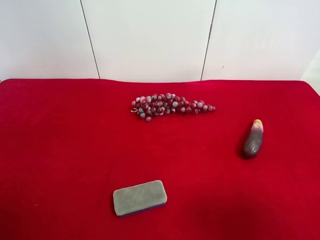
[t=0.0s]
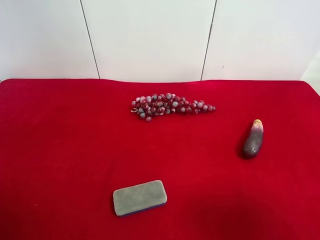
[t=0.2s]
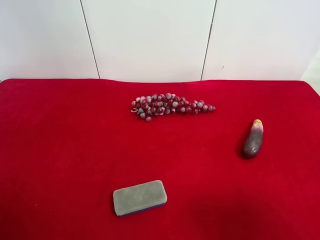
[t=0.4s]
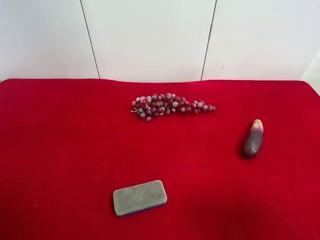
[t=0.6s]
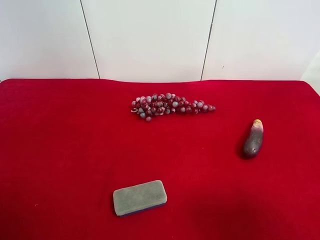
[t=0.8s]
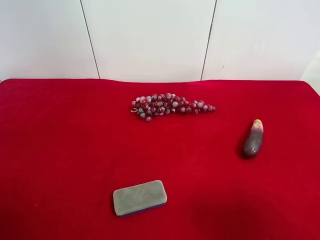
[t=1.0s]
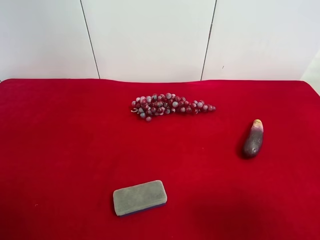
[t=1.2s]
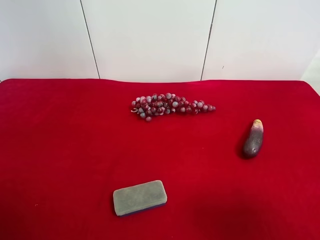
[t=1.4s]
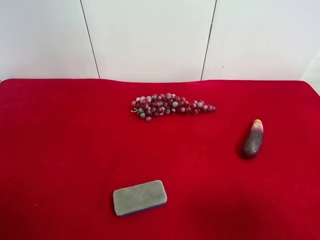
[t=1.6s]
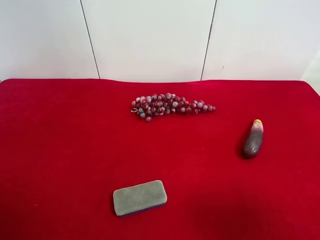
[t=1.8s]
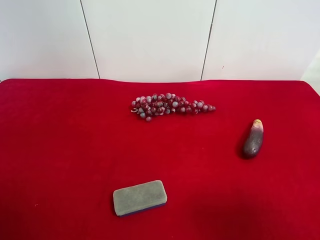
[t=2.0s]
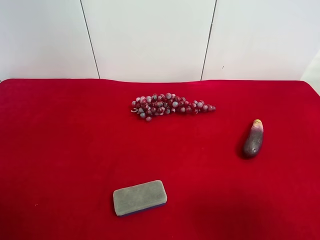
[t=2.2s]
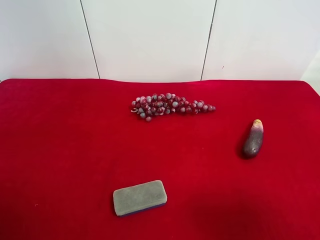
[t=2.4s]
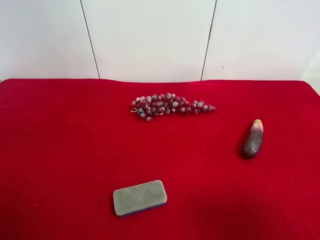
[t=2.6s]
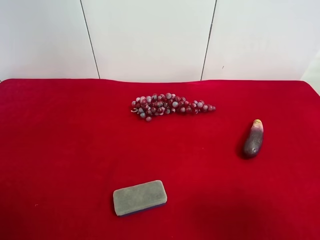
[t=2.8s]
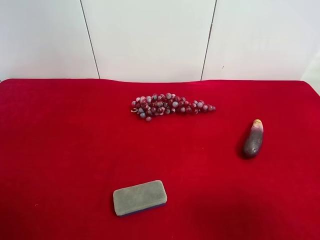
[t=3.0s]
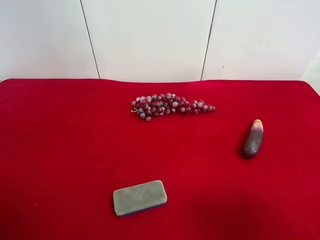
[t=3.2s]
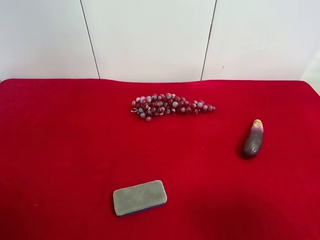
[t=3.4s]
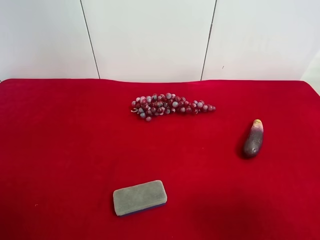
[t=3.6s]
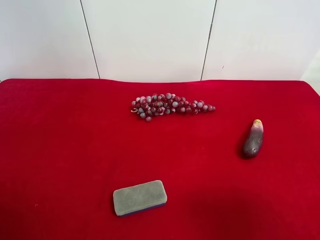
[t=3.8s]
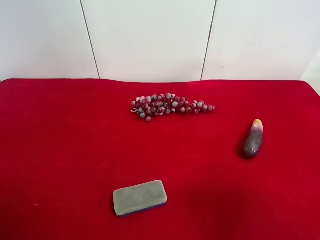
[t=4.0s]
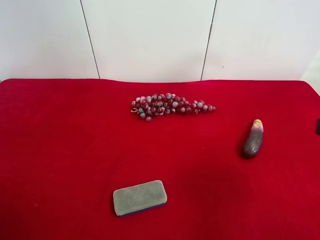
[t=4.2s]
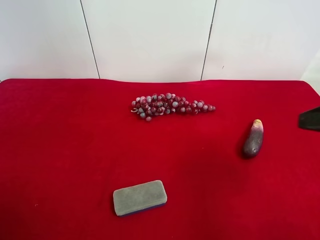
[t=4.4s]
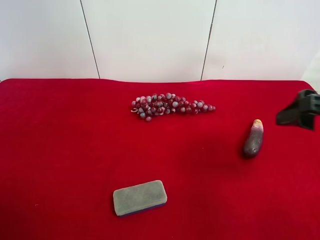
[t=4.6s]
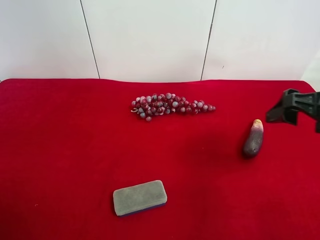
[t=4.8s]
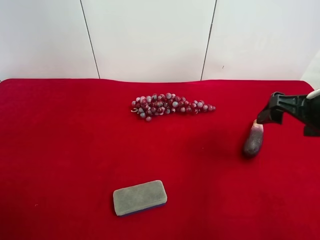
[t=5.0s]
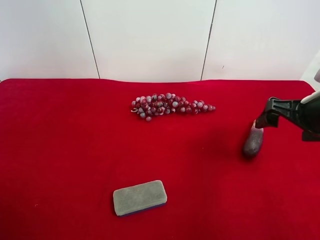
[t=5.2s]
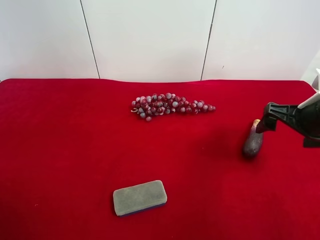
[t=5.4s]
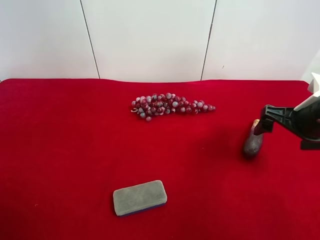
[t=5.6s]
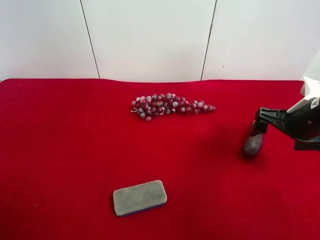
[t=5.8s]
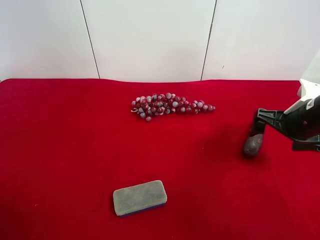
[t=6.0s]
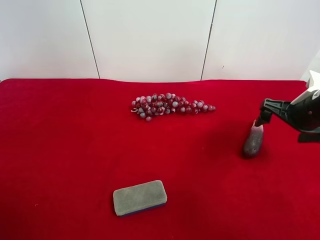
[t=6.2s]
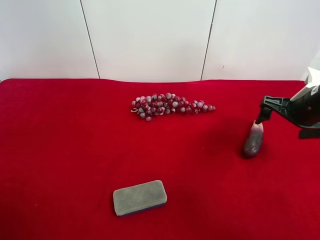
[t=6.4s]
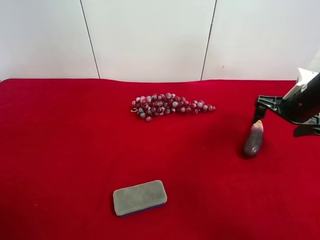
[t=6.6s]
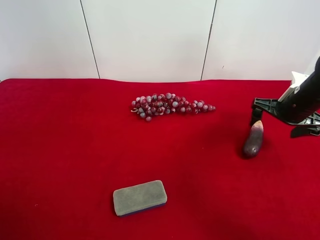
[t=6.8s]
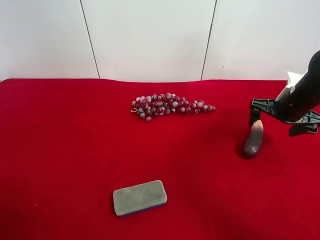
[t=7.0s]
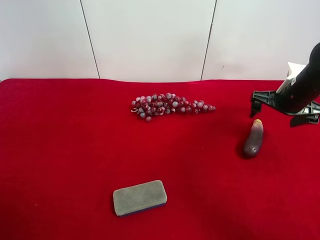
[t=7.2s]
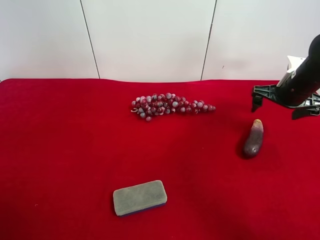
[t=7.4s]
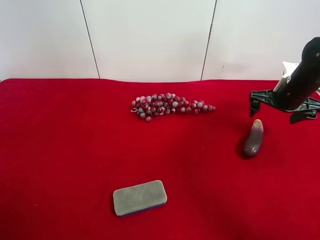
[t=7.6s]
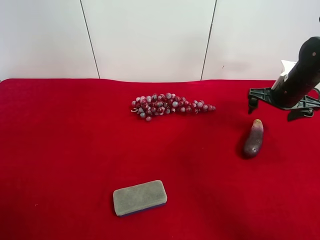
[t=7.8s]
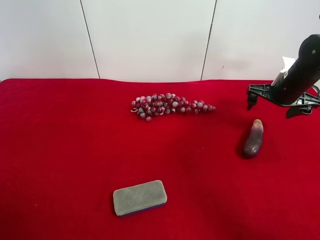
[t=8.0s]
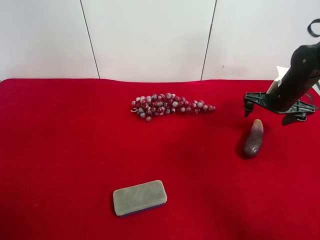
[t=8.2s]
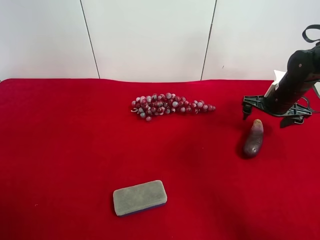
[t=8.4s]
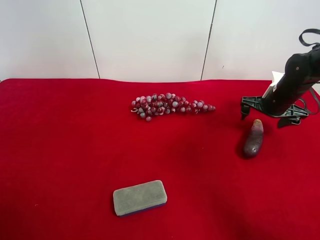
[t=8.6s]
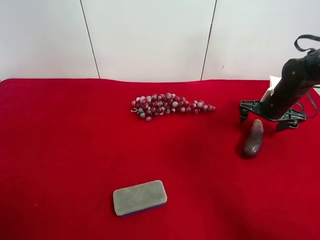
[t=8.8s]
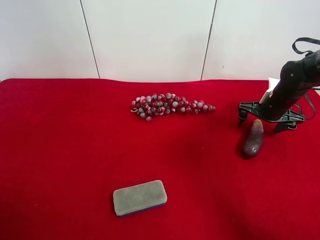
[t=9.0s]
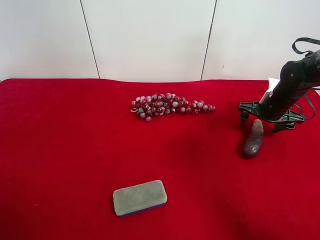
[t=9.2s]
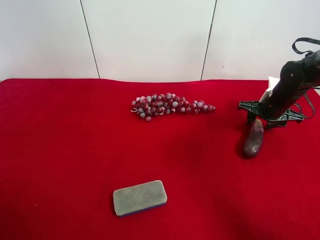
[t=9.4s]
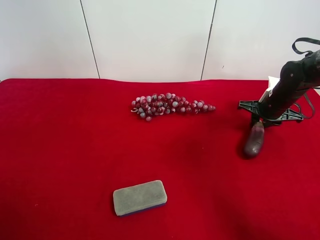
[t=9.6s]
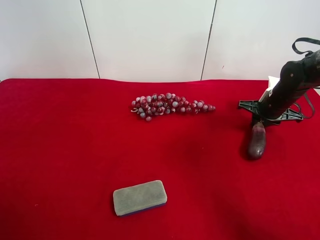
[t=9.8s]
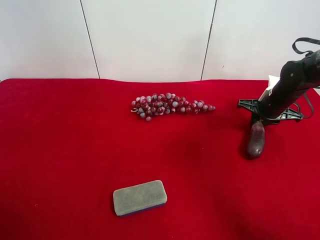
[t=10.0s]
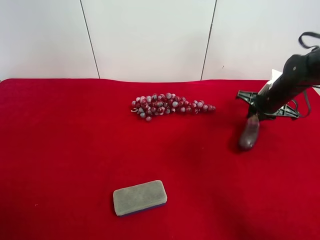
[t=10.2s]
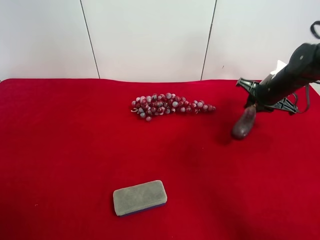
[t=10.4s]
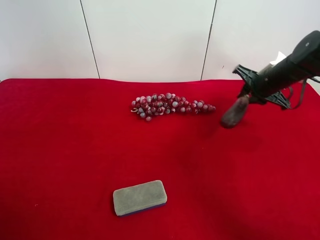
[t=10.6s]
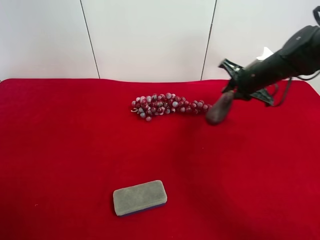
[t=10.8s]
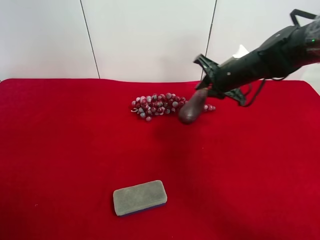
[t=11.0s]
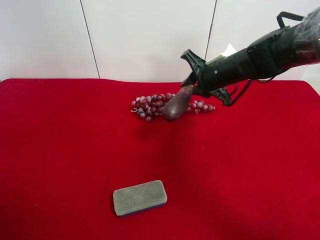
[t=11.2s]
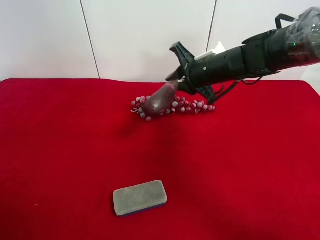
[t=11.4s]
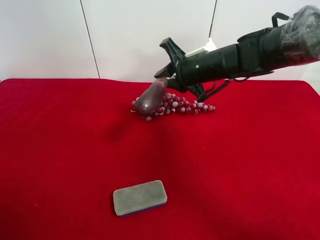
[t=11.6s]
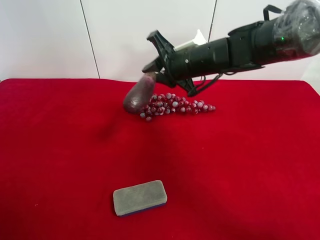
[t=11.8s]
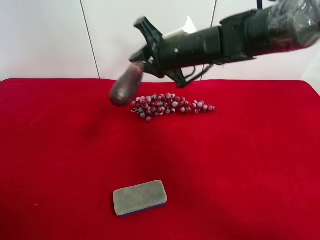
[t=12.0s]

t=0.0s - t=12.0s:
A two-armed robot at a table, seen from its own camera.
Task of the whole recording: use the right gripper to pick up the item and transfer it from the right gripper to the left gripper.
Step, t=0.0s - t=9.6s: Use the right gripper to grab the eggplant on the right side of the table.
t=0.0s - t=3.0s: Both grippers stay about where they are.
t=4.4s - t=6.0s: The right gripper travels forward and downward by some 15 cm.
t=6.0s - t=7.6s: The right gripper moves forward, some 10 cm.
t=7.6s - t=9.0s: The right gripper shifts some 5 cm downward.
t=9.0s - t=10.4s: The right gripper closes.
t=10.4s - t=12.0s: The right gripper travels to the left by approximately 25 cm.

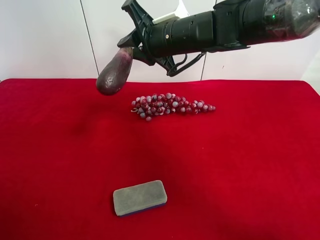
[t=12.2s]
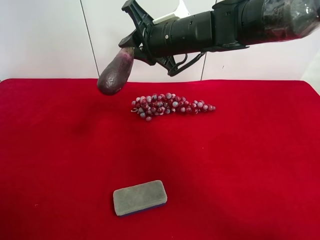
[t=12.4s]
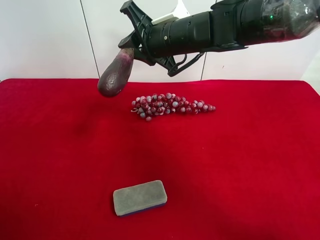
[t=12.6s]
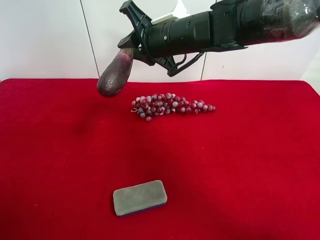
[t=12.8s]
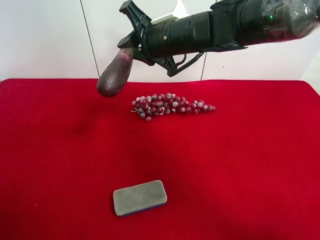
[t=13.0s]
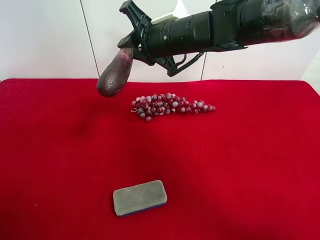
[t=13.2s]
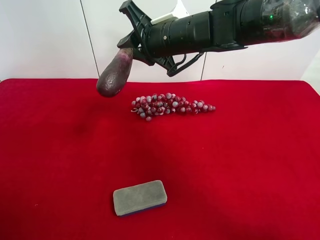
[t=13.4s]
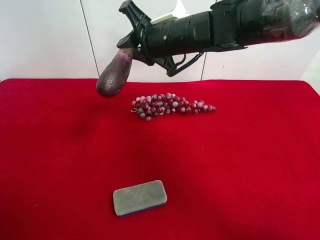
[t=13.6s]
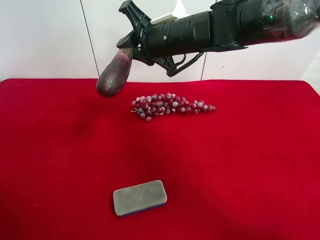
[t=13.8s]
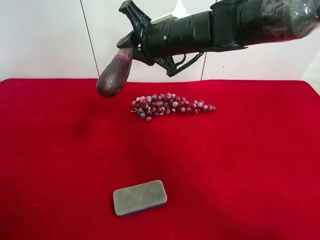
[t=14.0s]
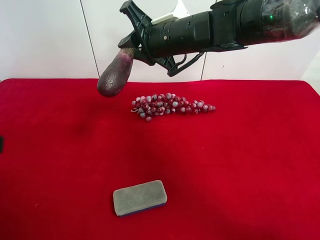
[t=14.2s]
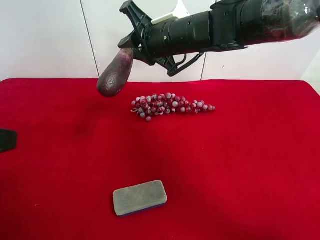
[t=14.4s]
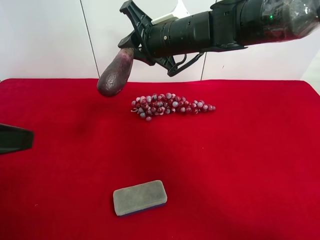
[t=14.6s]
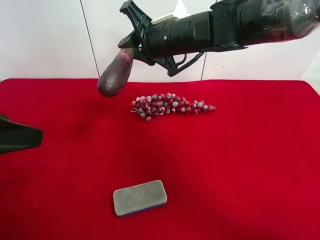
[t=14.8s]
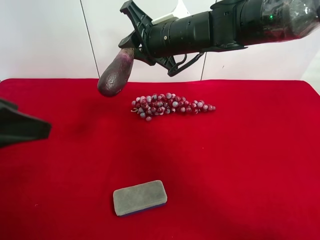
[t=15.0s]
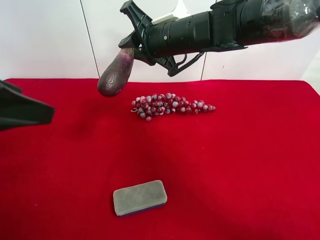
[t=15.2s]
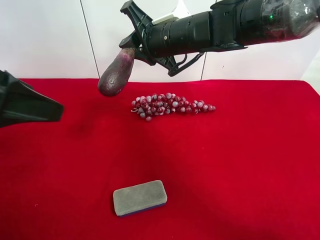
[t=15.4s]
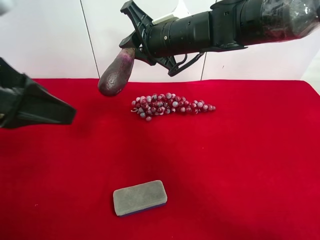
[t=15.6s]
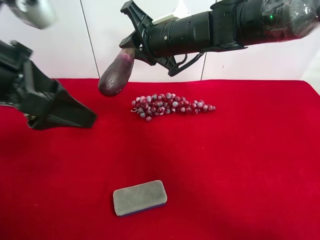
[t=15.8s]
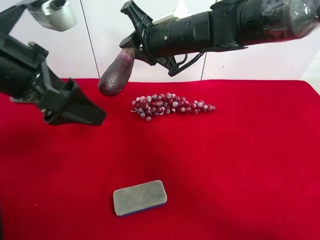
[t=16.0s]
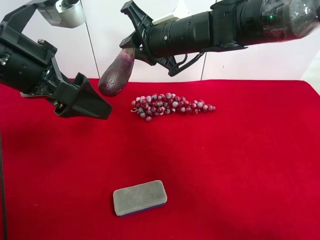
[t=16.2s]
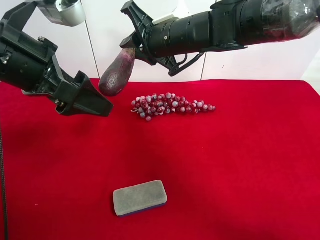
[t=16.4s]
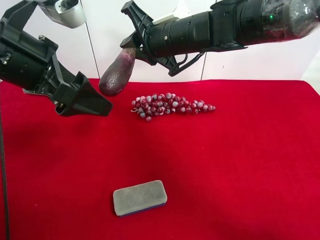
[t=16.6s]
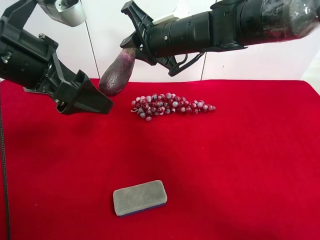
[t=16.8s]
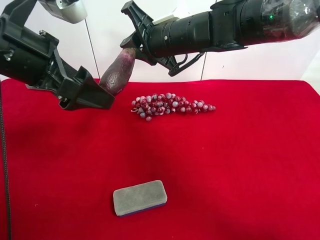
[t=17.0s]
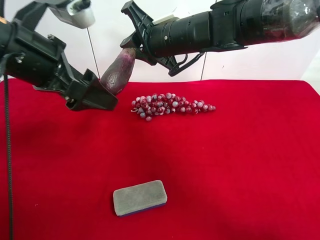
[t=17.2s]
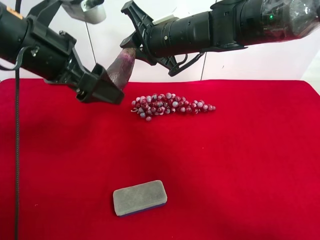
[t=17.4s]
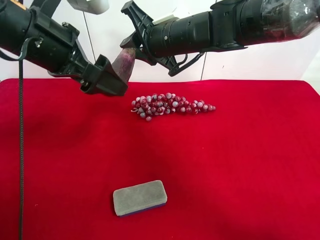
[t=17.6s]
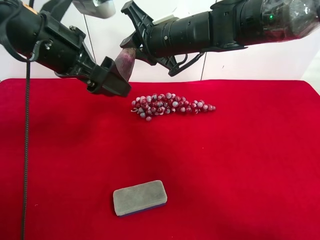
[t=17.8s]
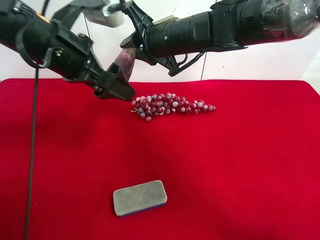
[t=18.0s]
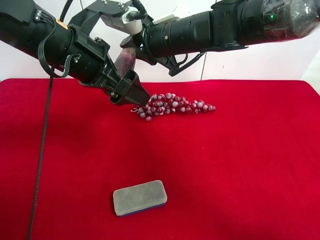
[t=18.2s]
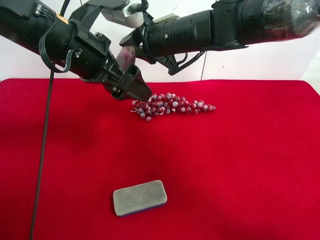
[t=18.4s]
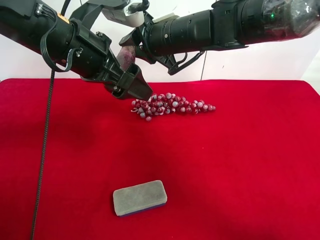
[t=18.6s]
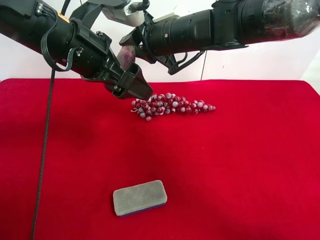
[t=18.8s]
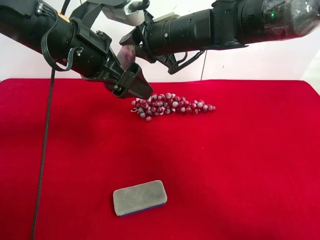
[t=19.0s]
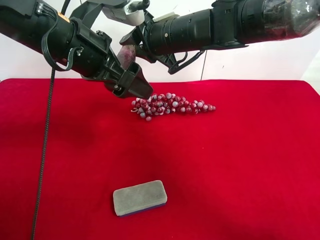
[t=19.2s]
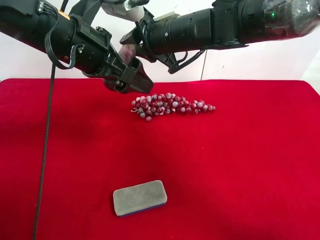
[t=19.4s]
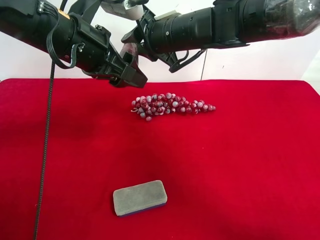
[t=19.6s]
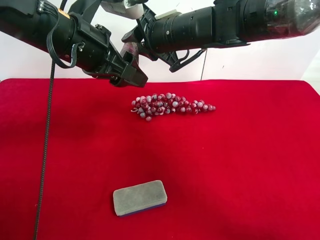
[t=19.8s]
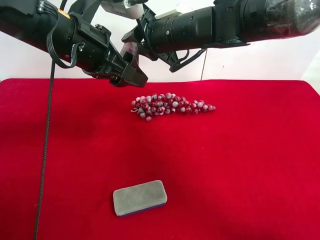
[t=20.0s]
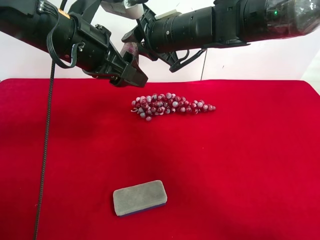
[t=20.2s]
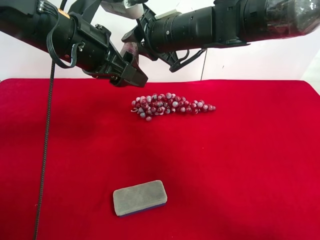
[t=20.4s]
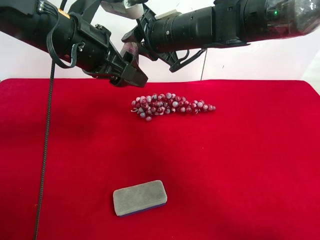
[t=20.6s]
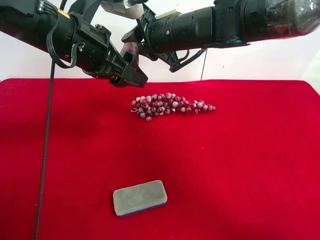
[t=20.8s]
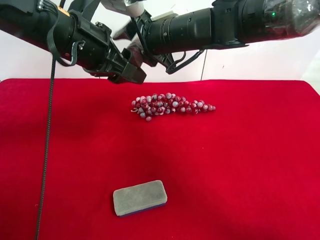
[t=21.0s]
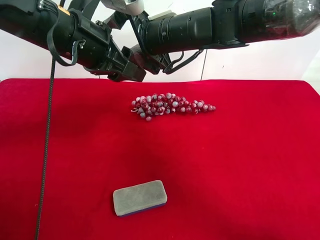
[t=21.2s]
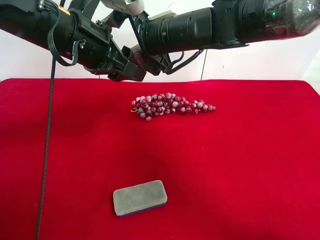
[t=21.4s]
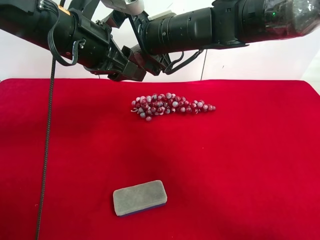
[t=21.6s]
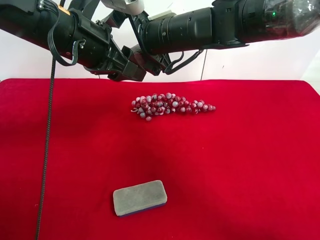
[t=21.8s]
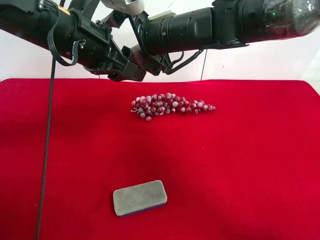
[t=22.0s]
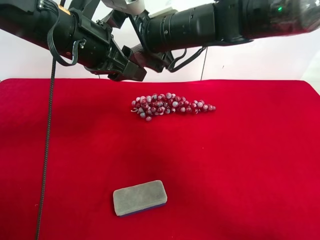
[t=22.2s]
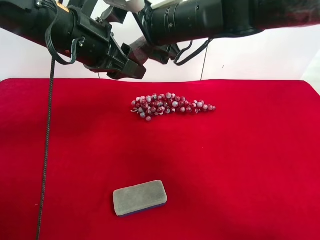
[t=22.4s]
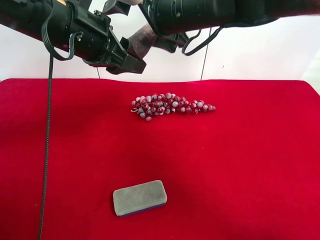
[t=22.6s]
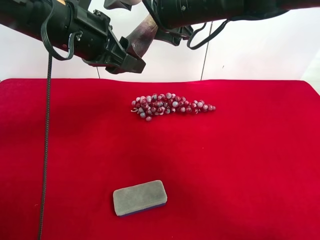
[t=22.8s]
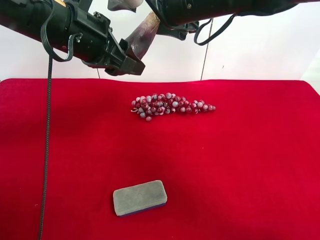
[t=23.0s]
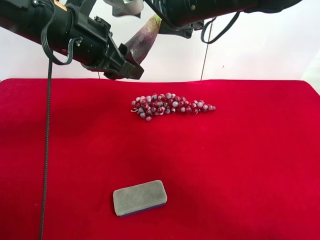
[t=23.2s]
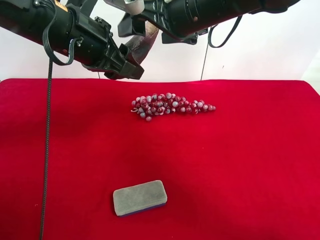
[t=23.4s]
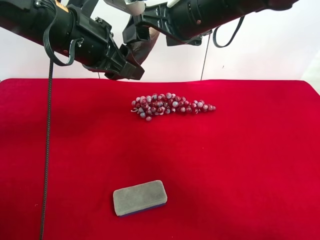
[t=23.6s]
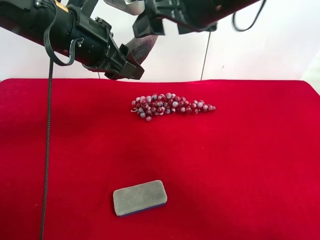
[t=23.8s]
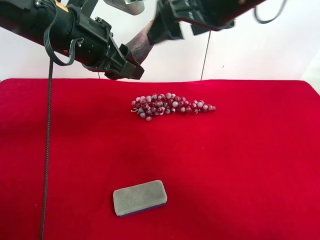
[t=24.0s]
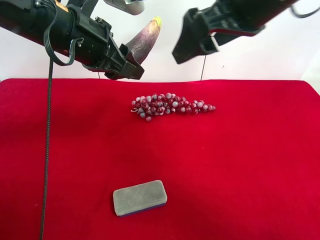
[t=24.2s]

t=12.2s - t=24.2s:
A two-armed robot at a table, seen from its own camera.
Task of the whole recording: use the right gripper to pick up the item and transfer it from the right gripper to the left gripper.
Step, t=12.2s - t=21.0s: Pass the eggplant to the left gripper.
t=12.2s - t=13.8s: The left gripper moves forward, some 5 cm.
t=13.8s - t=15.2s: The left gripper travels forward by approximately 10 cm.
t=15.2s - t=16.6s: The left gripper moves forward and to the right, approximately 10 cm.
t=16.6s - t=18.2s: The left gripper moves to the right, roughly 5 cm.
t=18.2s - t=19.8s: The left gripper closes.
t=19.8s - t=21.2s: The right gripper opens.
t=21.2s - t=22.6s: The right gripper changes place by some 5 cm.
t=22.6s - t=24.2s: The right gripper goes roughly 15 cm backward, to the right and upward.
